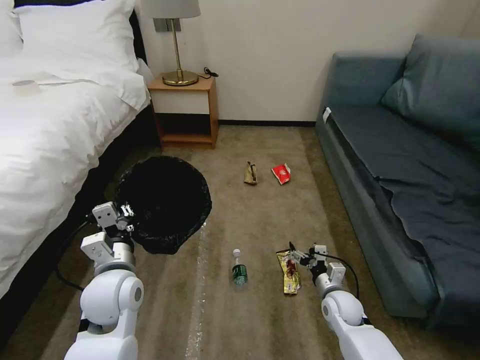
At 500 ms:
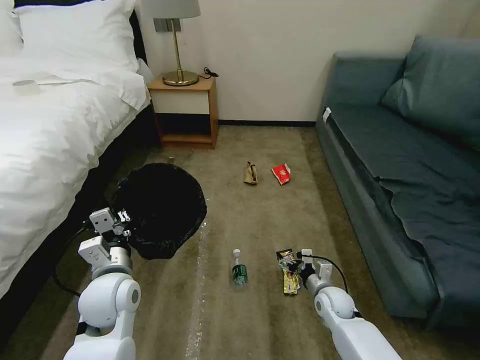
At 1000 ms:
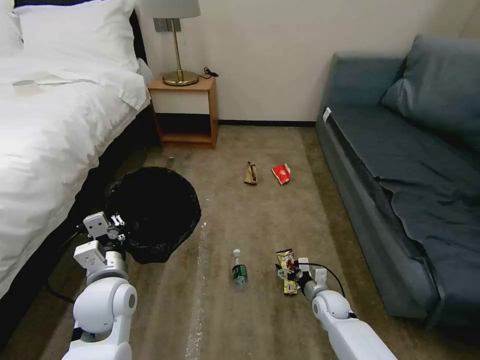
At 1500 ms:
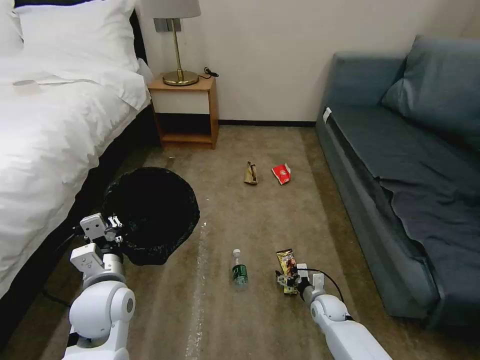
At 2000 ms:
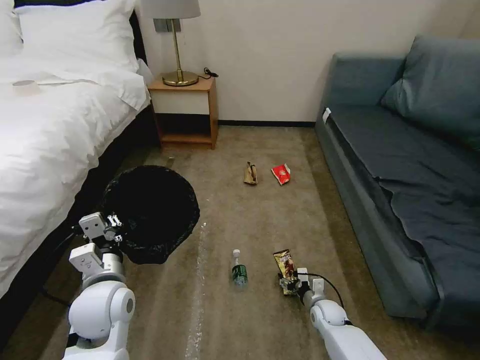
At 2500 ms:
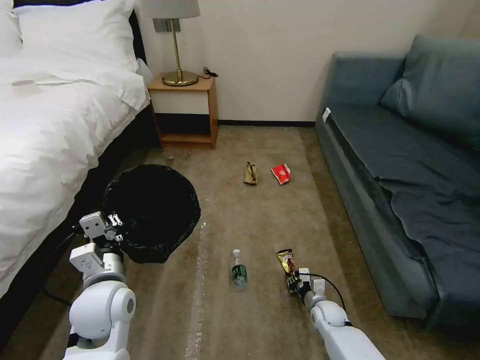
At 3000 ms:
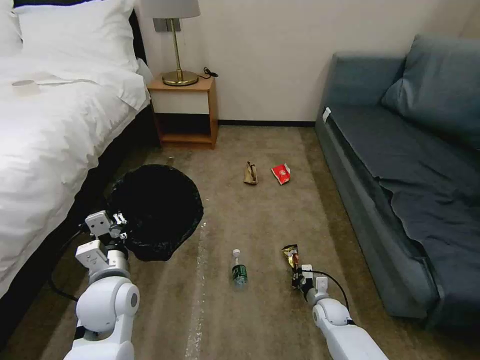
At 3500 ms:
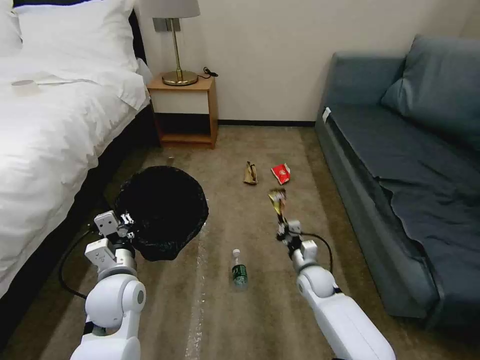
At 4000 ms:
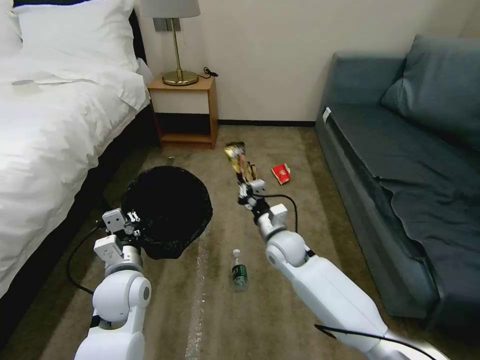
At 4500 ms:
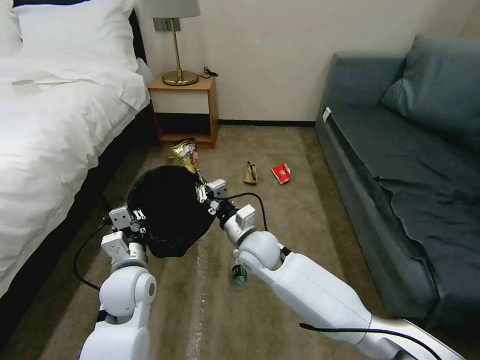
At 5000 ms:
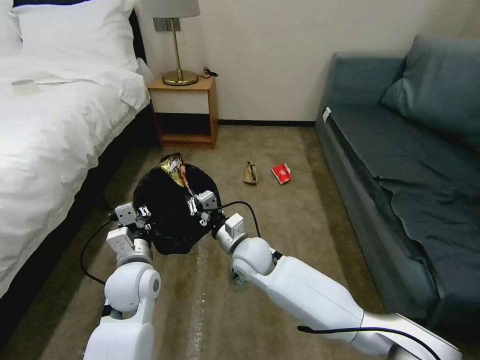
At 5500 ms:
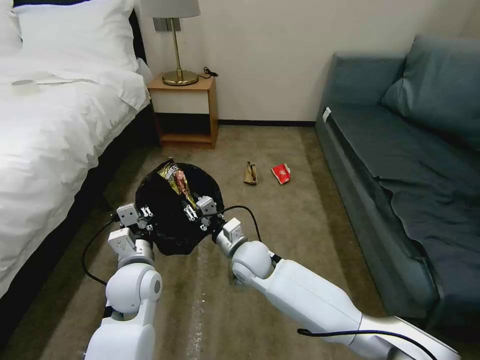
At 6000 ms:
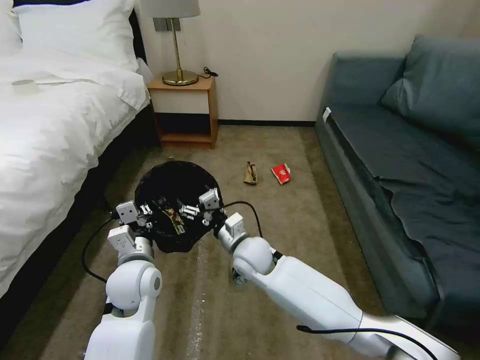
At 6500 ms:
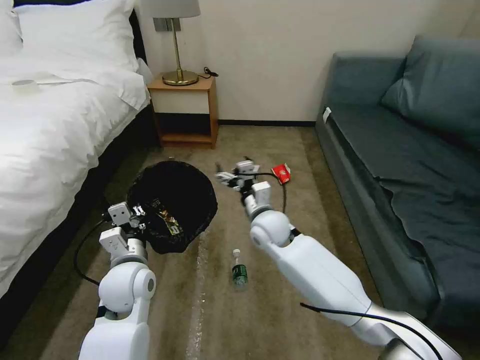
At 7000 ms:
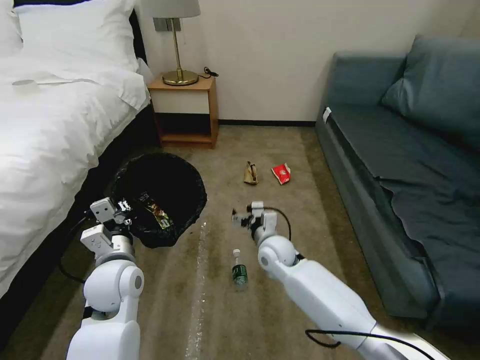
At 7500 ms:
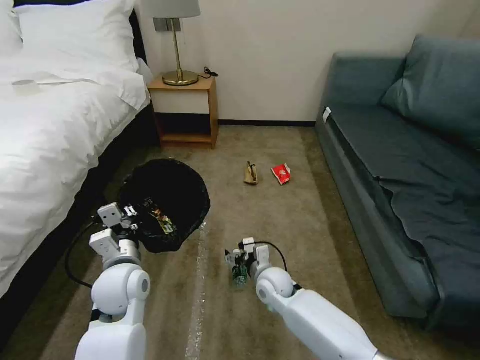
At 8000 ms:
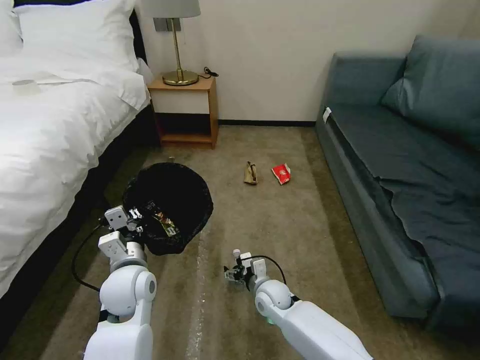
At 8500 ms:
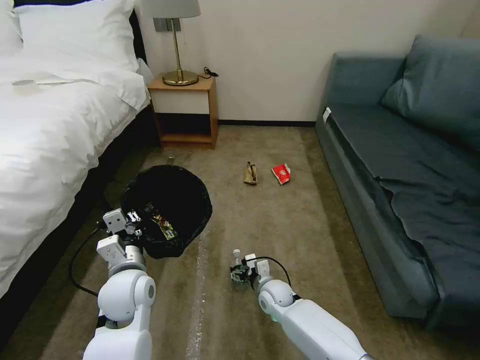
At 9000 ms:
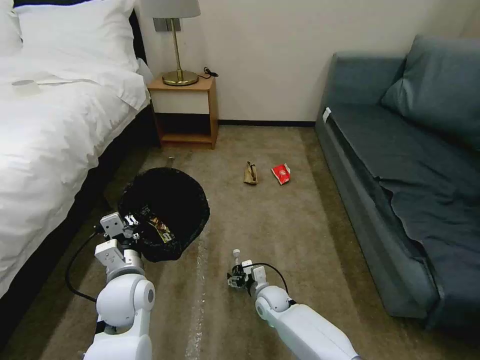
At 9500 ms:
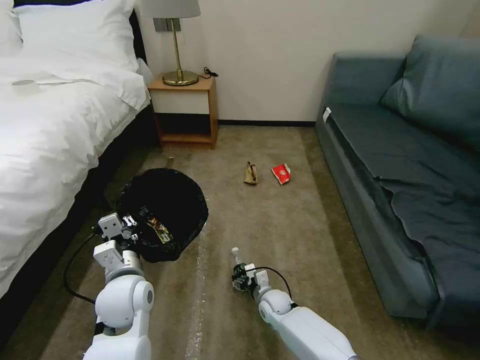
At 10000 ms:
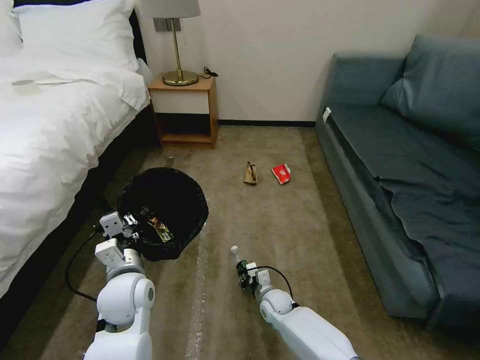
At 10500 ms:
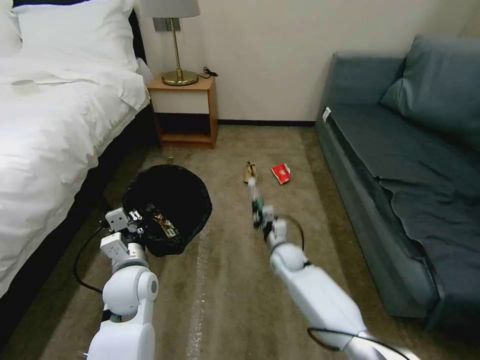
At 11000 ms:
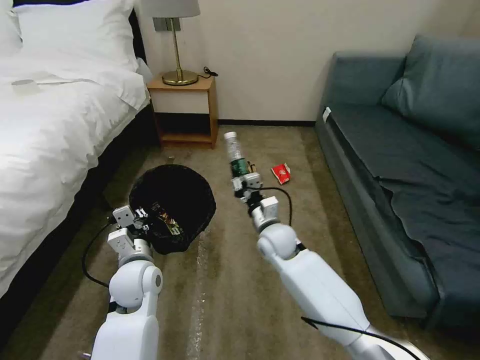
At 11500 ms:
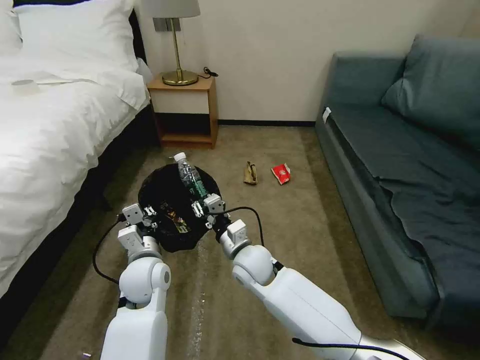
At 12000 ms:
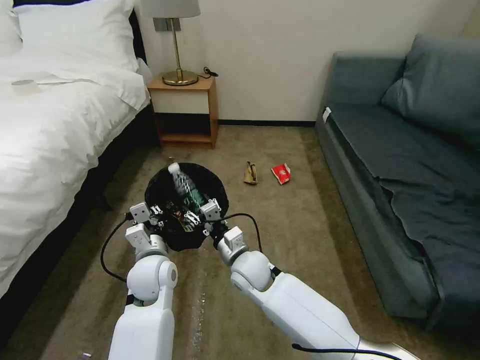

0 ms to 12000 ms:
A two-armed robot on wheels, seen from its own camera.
Task of the whole recording: Pick up the trash bin, then pick up the garbage on the floor and place it into the trash bin.
0 ms to 2000 ms: The right gripper goes roughly 10 cm downward.
2000 ms to 4000 ms: The right gripper shifts roughly 30 cm upward and to the left, and closes up.
4000 ms to 6000 ms: The right gripper moves to the left, approximately 10 cm, and opens.
6000 ms to 8000 ms: The right gripper heads downward and to the right, covering about 15 cm.
8000 ms to 10000 ms: The right gripper heads downward, covering roughly 10 cm, and closes.
10000 ms to 12000 ms: The right gripper travels upward and to the left by some 25 cm. The left gripper ends up roughly 5 cm from where it was.

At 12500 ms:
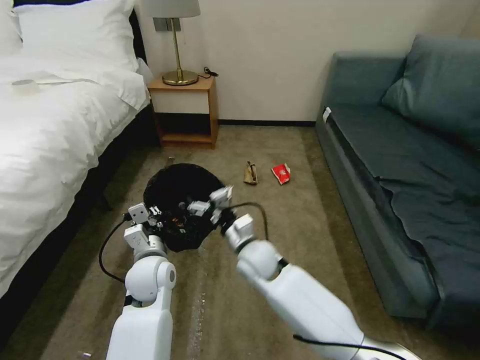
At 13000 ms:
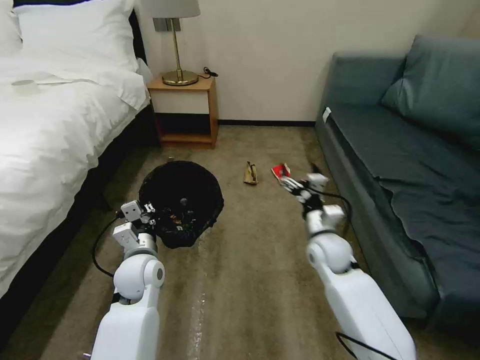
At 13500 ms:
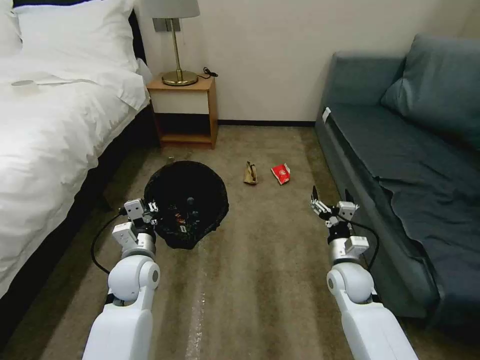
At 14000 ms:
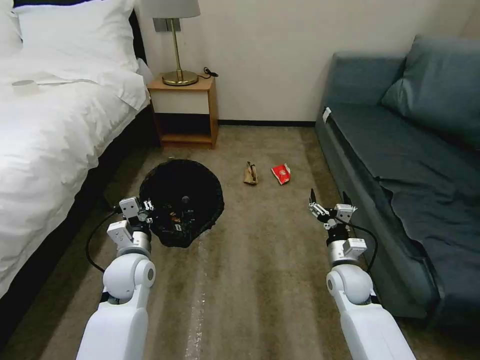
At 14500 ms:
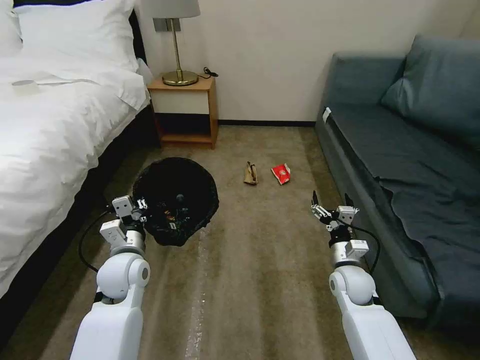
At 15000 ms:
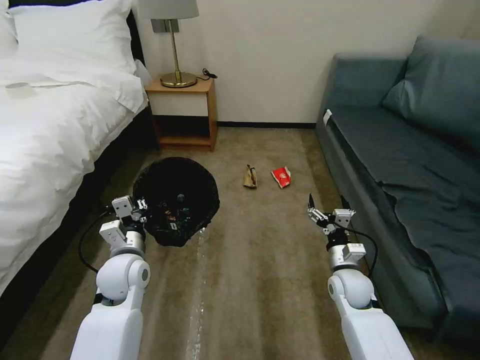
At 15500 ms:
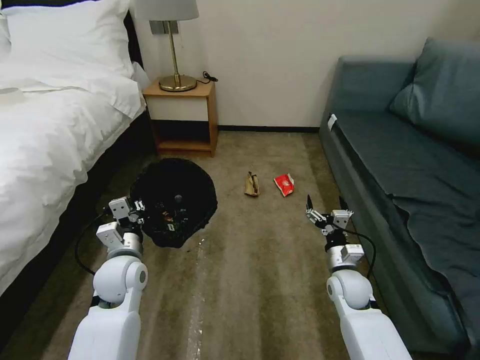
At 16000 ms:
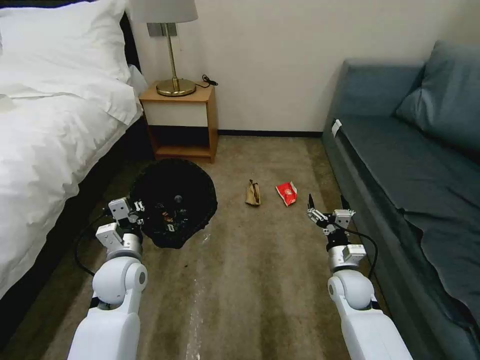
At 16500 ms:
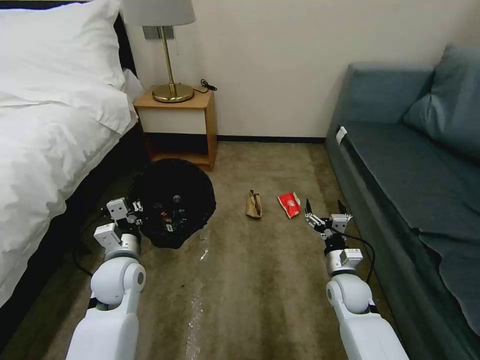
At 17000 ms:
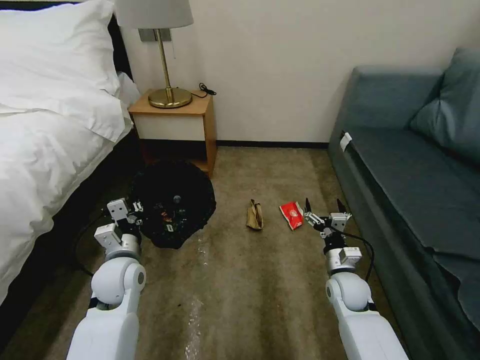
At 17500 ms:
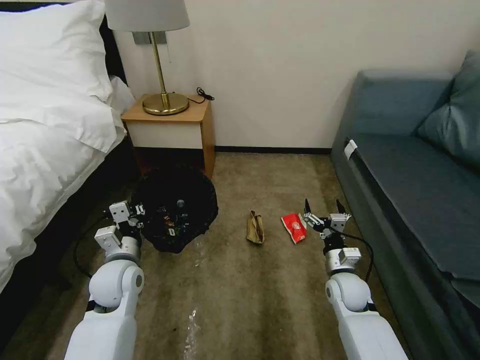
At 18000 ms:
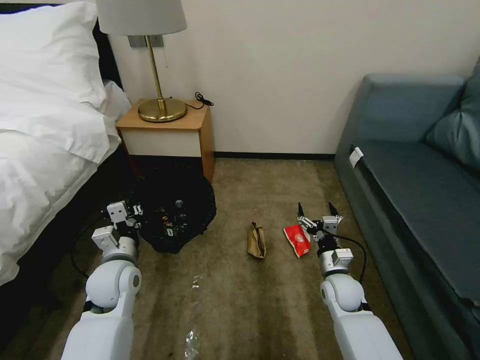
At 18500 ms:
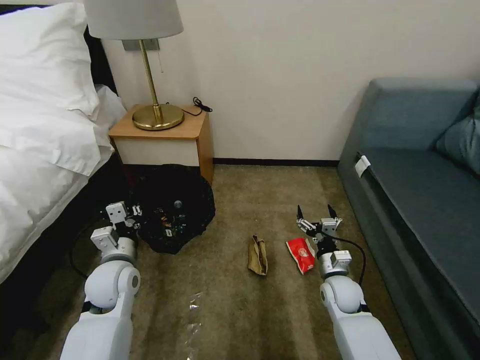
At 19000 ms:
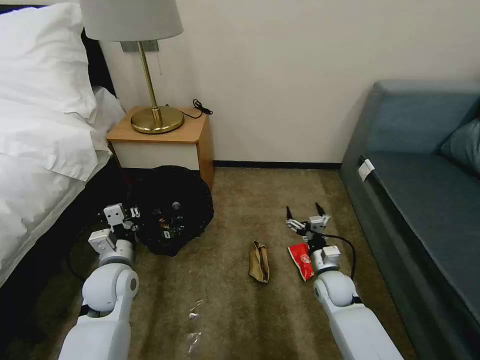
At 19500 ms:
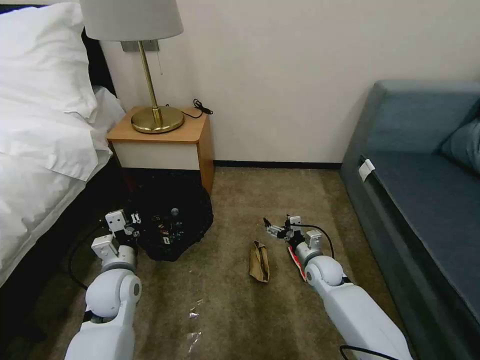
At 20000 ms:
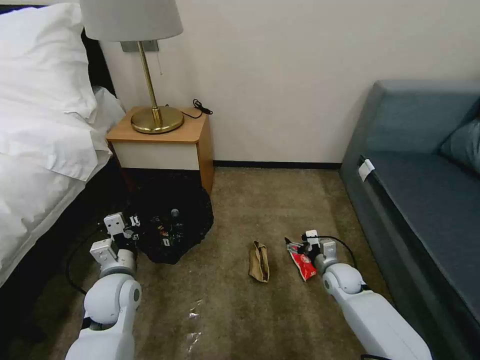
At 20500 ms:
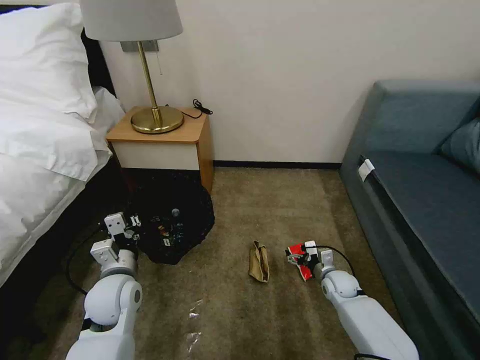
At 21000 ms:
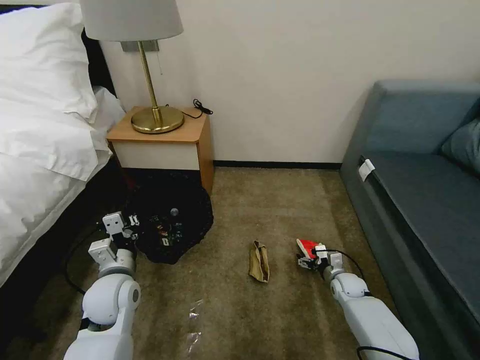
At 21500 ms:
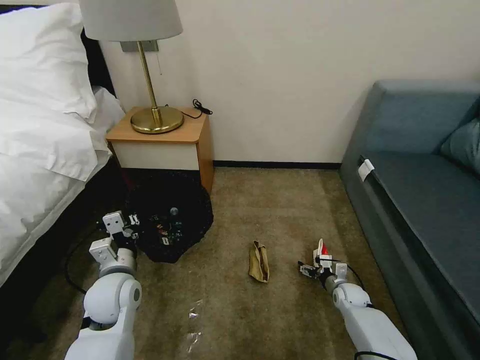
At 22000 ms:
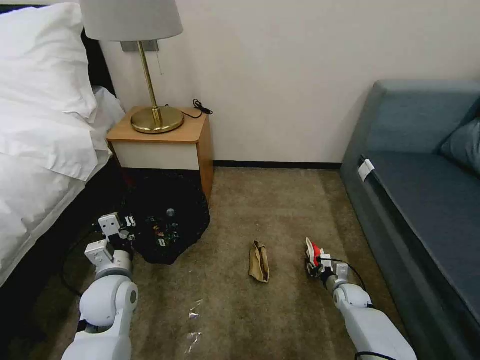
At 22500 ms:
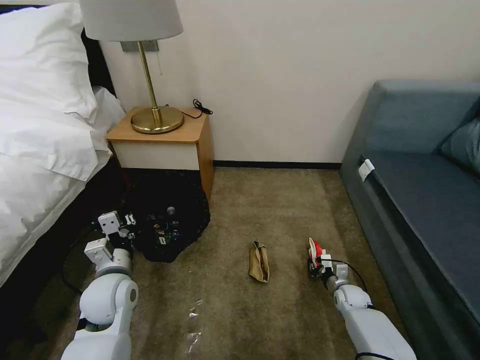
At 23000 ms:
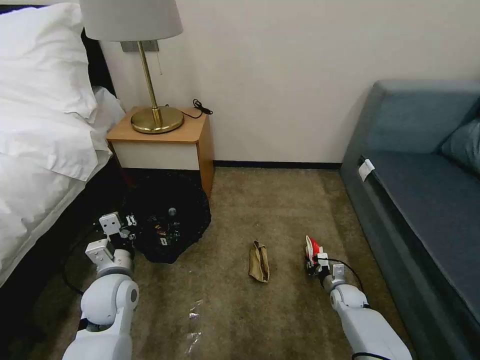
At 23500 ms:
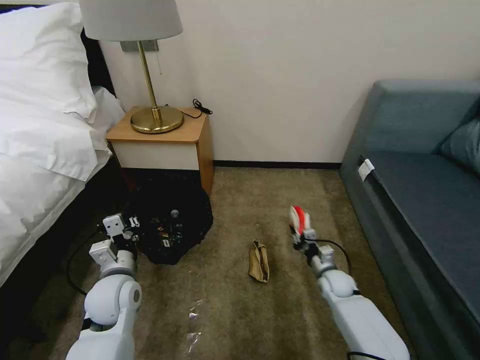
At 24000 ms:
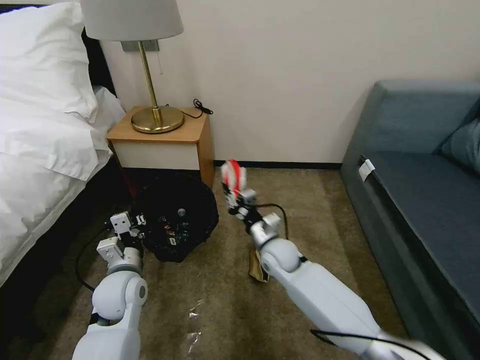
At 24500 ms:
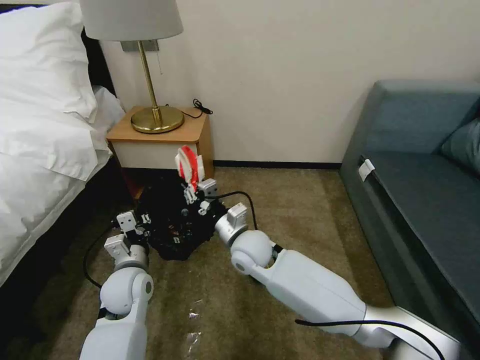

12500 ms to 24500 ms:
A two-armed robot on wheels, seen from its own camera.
Task of the whole recording: Pick up the trash bin, then pick up the garbage on the floor and place it into the trash bin.
12500 ms to 14500 ms: The left gripper heads to the left, covering about 5 cm, while the right gripper goes approximately 25 cm to the right.
18500 ms to 20500 ms: The right gripper travels downward by about 5 cm.
20500 ms to 22500 ms: The right gripper heads downward and to the right, covering about 10 cm, and closes up.
22500 ms to 24500 ms: The right gripper moves to the left and upward, roughly 40 cm.

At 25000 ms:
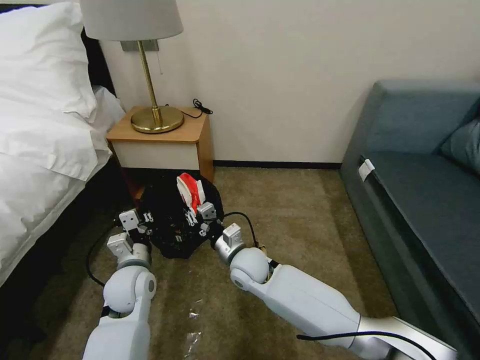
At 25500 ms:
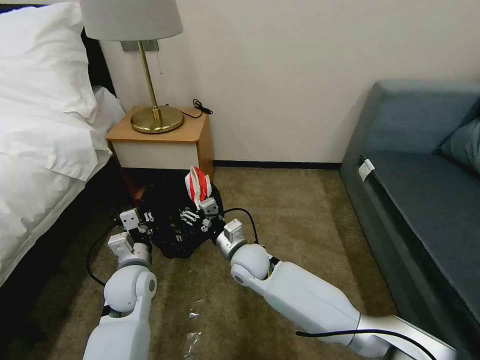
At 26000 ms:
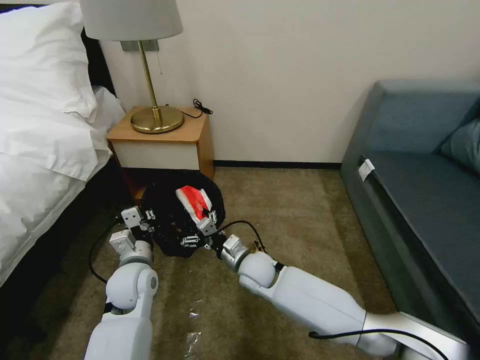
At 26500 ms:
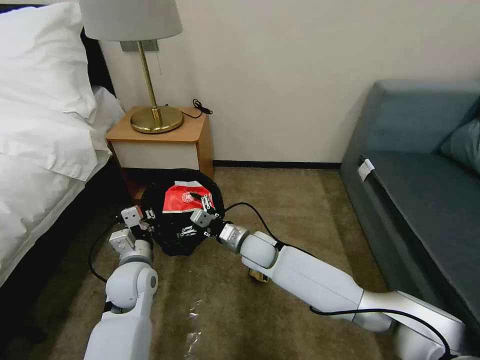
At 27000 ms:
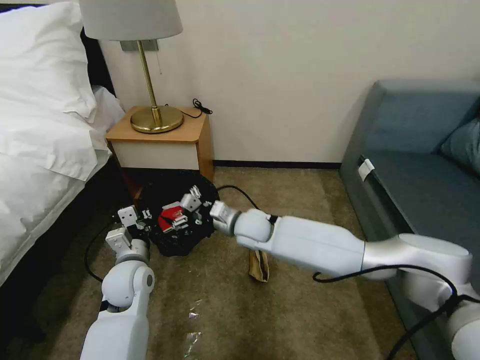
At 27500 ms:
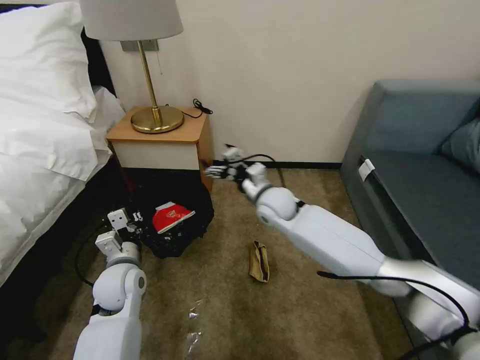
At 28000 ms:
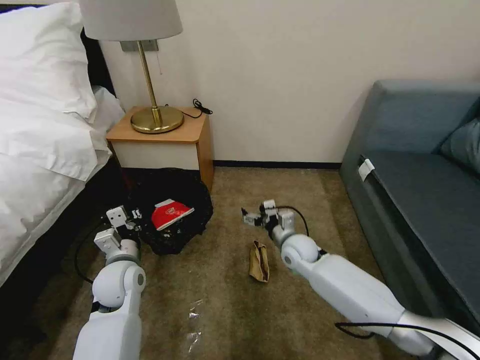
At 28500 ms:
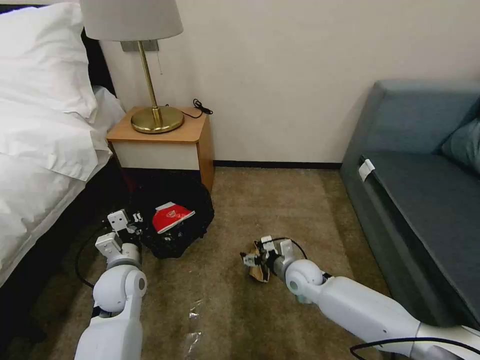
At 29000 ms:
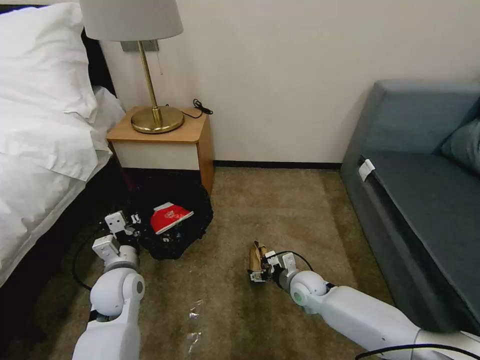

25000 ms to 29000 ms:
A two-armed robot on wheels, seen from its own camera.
Task of the whole recording: Pick up the trash bin, then pick up the garbage on the floor and place it into the trash bin.
25000 ms to 27000 ms: The right gripper heads forward and upward, covering roughly 10 cm, and opens up.
27000 ms to 29000 ms: The right gripper moves downward, to the right and backward, approximately 25 cm.
